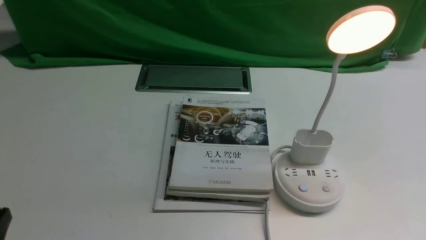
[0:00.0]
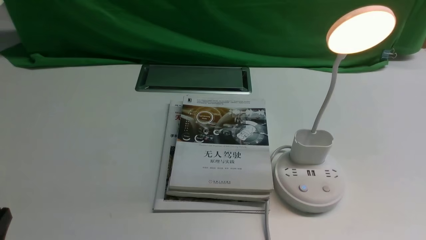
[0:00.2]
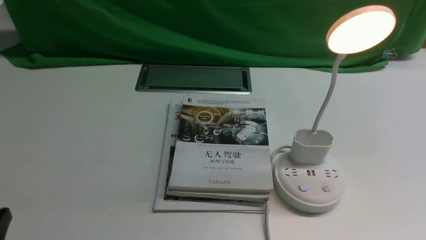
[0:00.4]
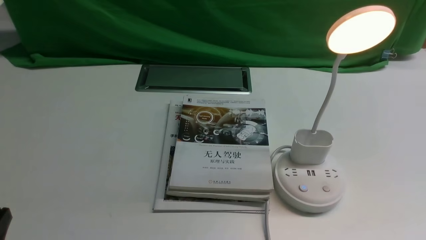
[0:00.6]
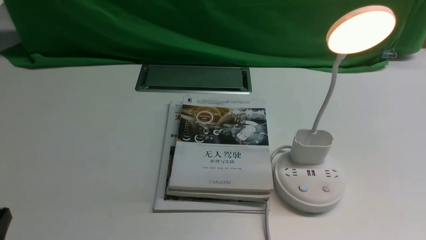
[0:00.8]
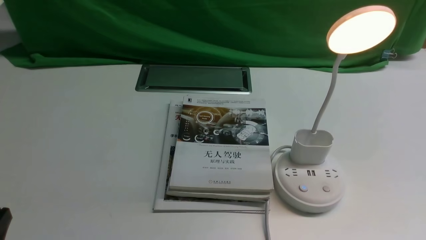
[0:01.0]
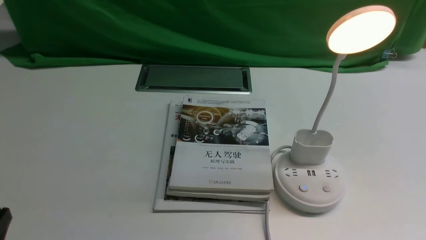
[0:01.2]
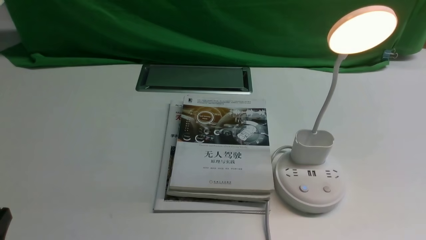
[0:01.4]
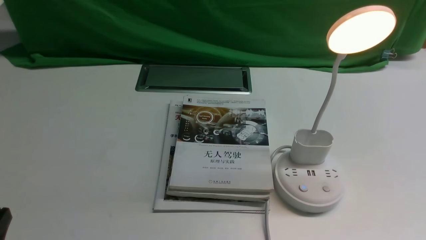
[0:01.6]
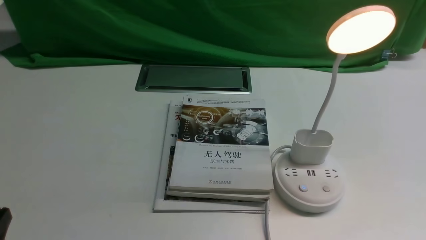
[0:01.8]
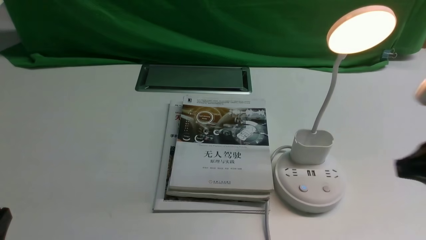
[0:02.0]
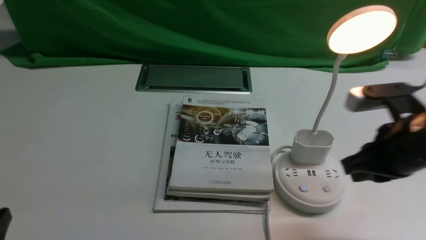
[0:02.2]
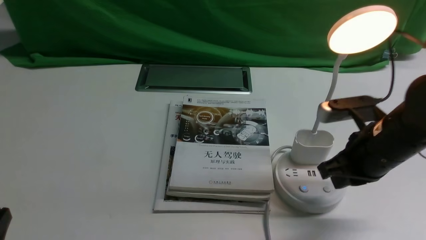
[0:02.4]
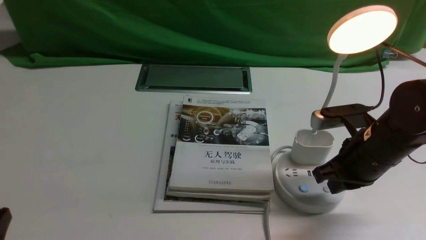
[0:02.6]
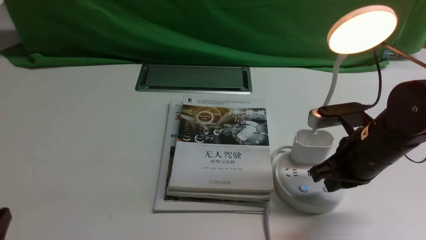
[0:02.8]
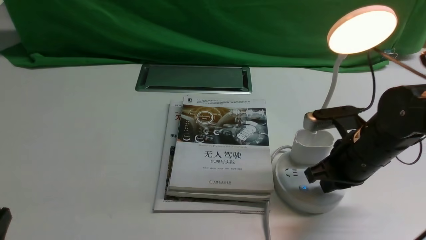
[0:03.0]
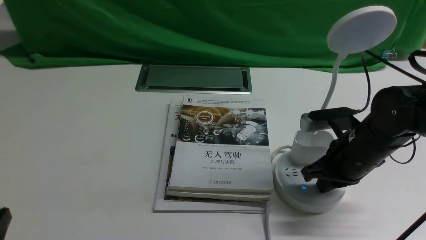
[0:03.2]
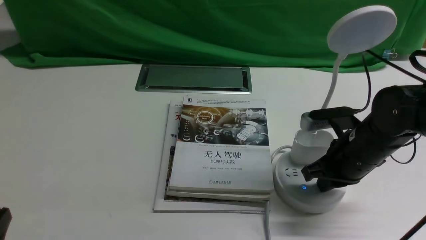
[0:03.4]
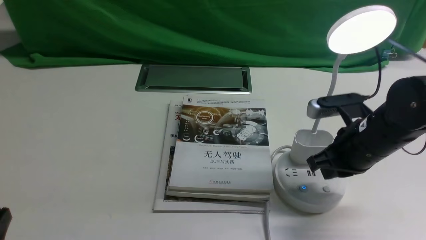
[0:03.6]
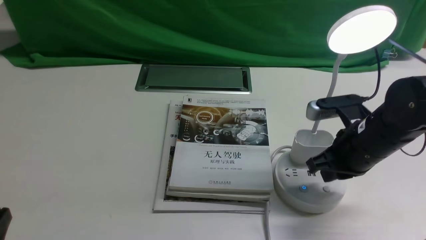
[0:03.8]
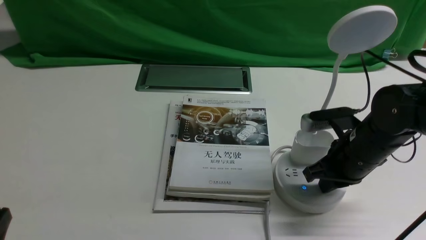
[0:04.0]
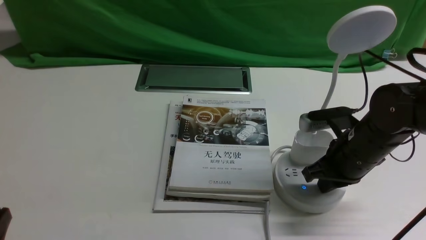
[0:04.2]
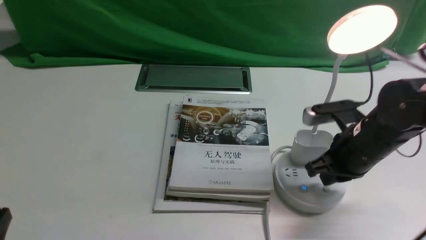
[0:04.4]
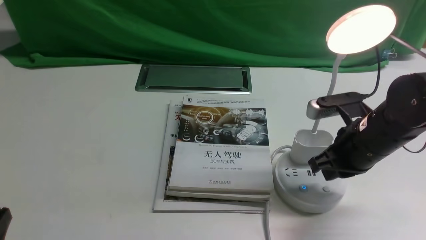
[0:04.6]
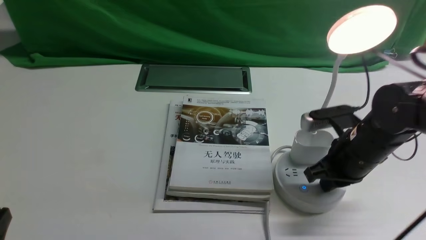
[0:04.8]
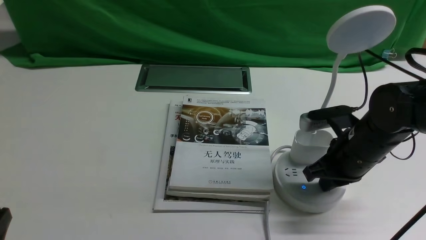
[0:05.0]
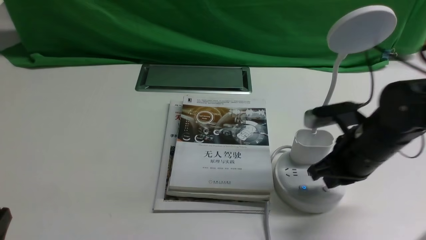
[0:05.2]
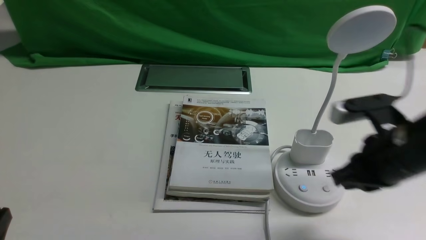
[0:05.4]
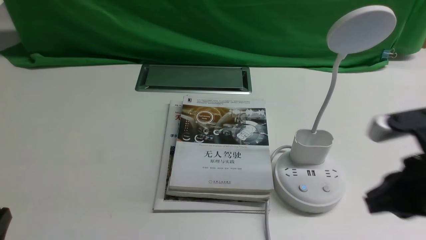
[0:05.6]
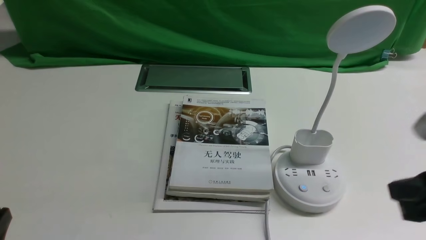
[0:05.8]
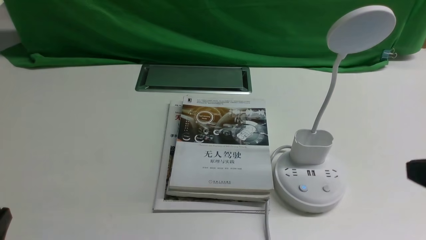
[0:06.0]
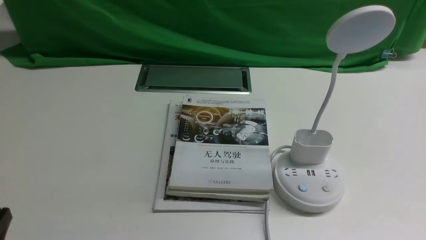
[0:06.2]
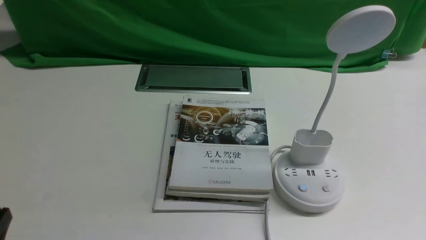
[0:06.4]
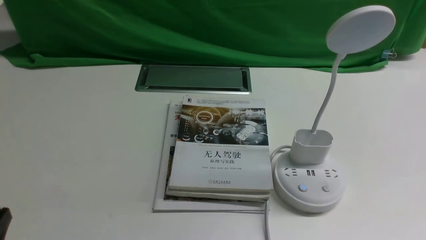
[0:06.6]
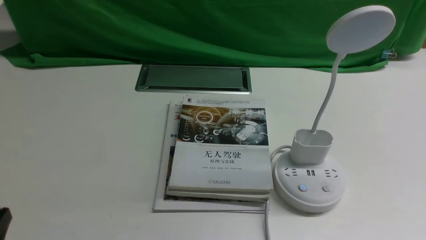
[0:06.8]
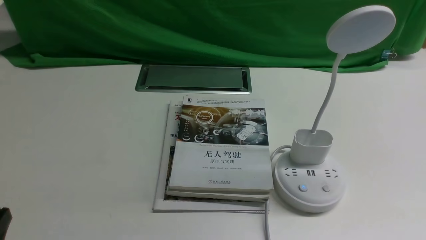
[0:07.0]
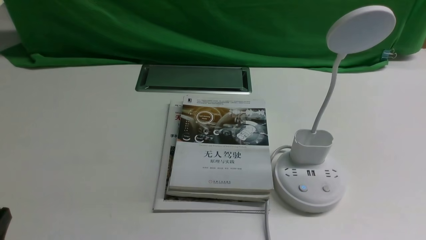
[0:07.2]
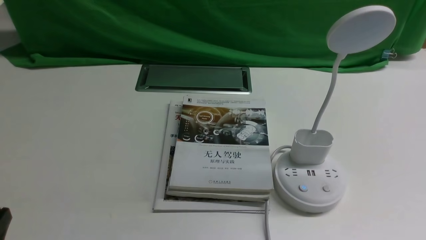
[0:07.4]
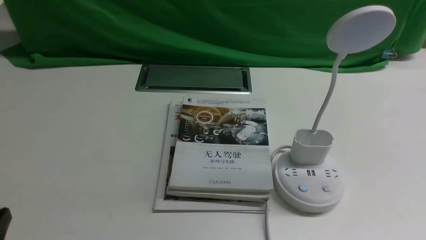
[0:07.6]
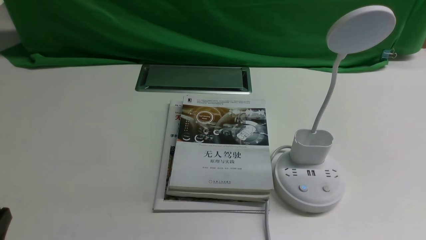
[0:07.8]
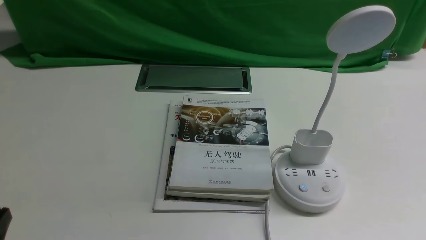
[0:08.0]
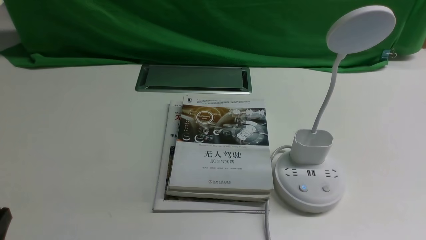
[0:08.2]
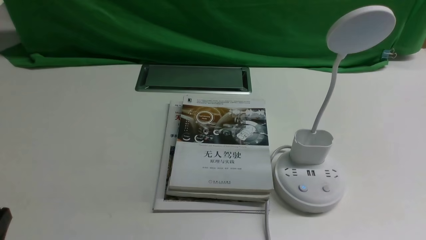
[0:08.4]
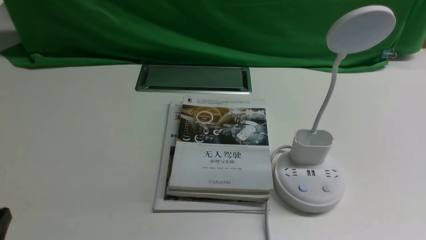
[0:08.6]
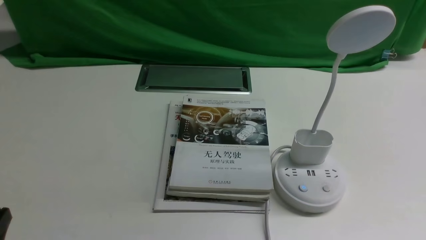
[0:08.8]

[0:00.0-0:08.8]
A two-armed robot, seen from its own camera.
Task of the whole recording: turn off the desk lamp on the white desktop by hand.
Step, 0:00.0 to 0:05.2: use the right arm to press the button switch on the lamp holder.
0:01.4 to 0:03.0: The right gripper is displaced forward and to the left by about 25 cm, and closes its fingers.
0:03.0 to 0:04.4: Neither gripper changes place.
0:04.4 to 0:05.8: The right gripper heads backward and upward, covering some 20 cm.
0:05.8 to 0:07.4: The right gripper shifts approximately 15 cm downward, backward and to the right.
